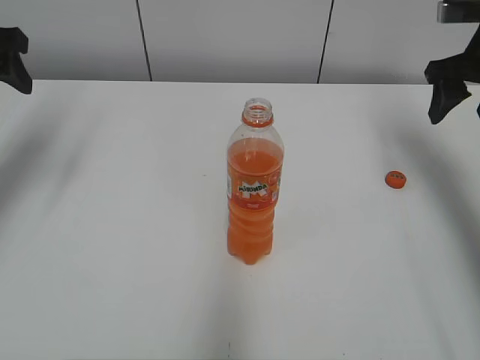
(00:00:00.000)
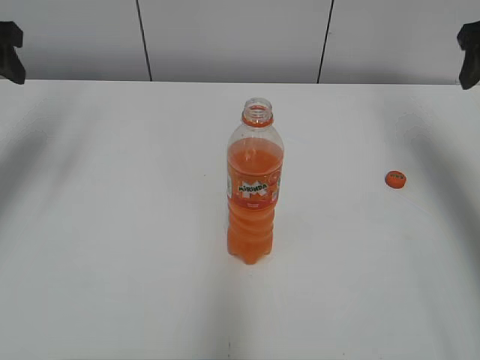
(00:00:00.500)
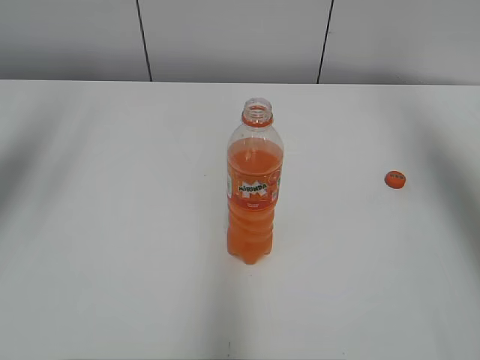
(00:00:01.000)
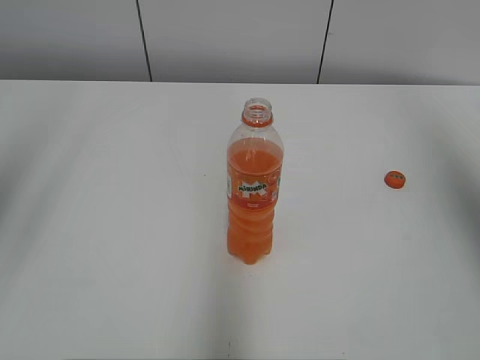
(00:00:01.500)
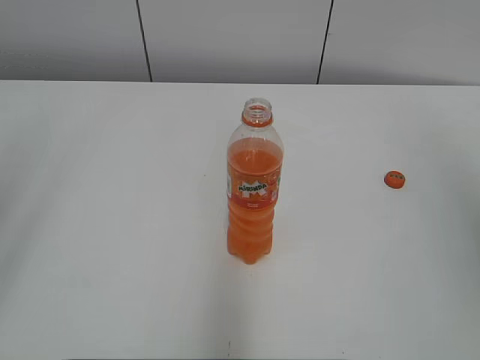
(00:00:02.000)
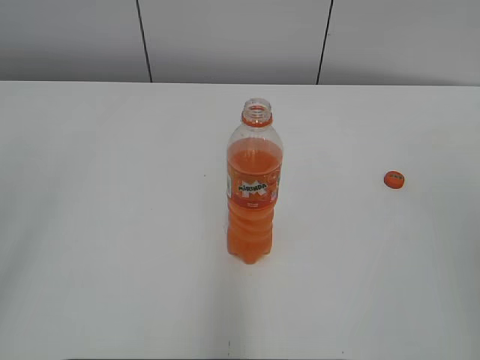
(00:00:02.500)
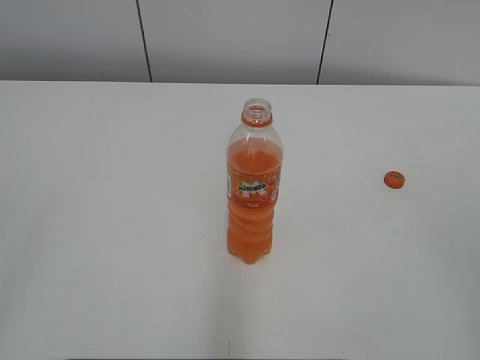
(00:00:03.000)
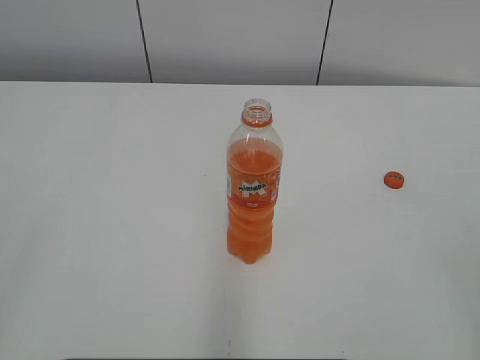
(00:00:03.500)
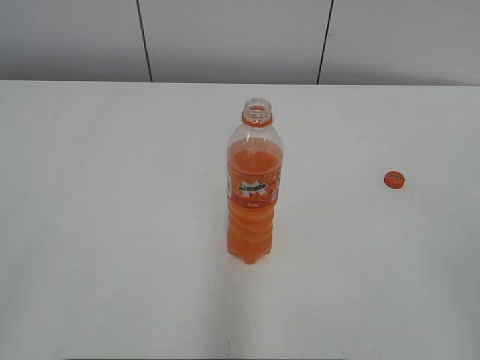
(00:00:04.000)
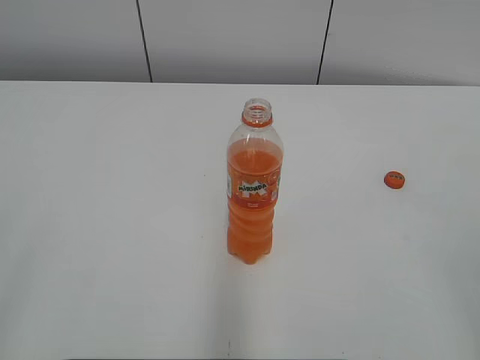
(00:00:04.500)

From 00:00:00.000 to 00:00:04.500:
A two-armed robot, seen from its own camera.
From 00:00:00.000 to 00:00:02.000: The two grippers go about 30 cm backward and upward.

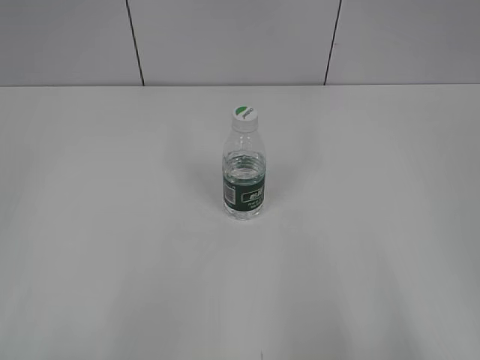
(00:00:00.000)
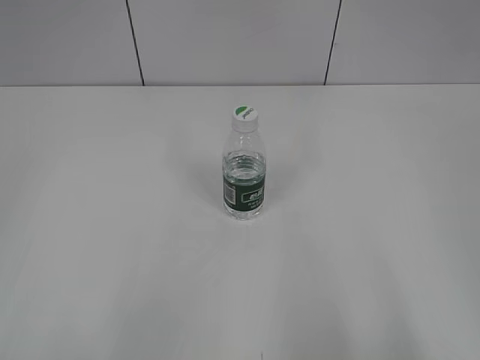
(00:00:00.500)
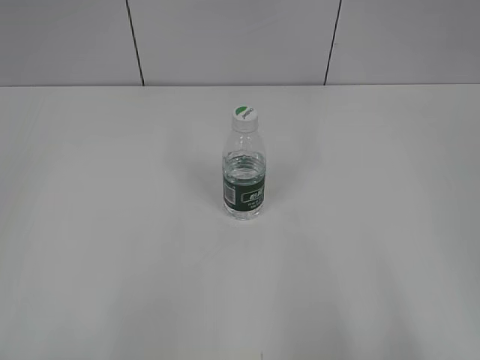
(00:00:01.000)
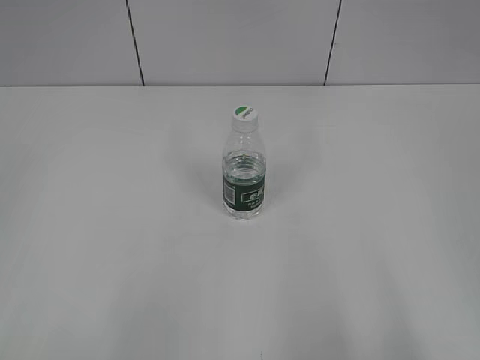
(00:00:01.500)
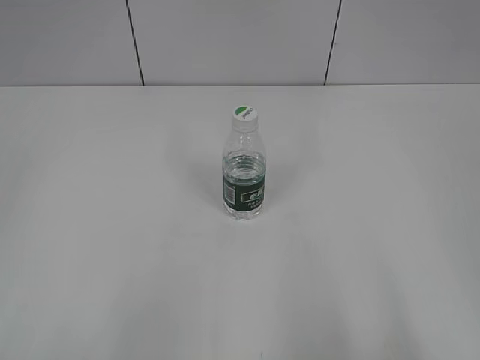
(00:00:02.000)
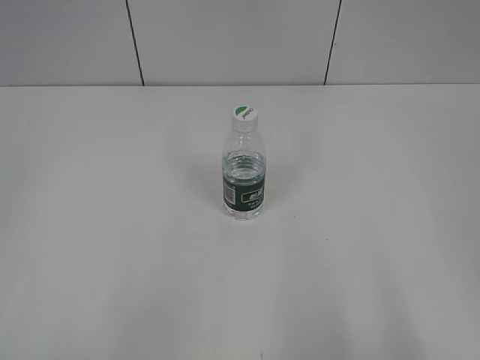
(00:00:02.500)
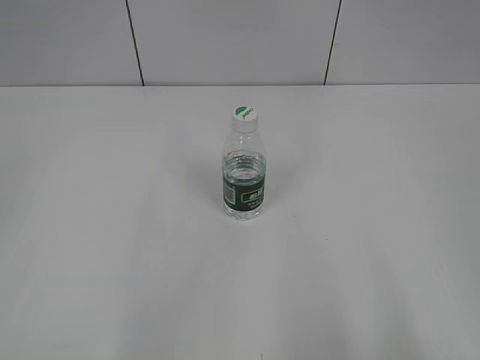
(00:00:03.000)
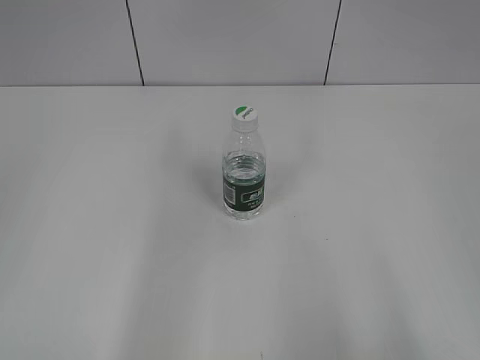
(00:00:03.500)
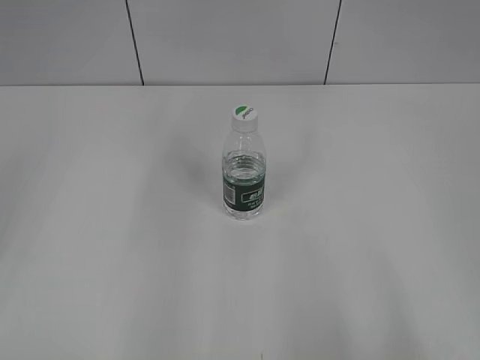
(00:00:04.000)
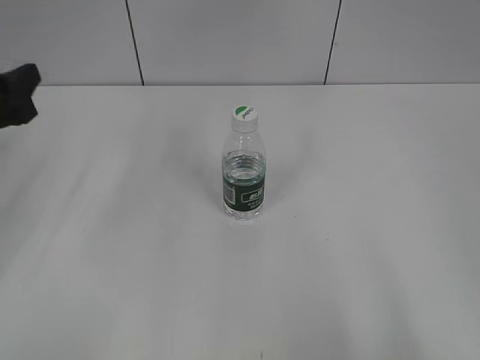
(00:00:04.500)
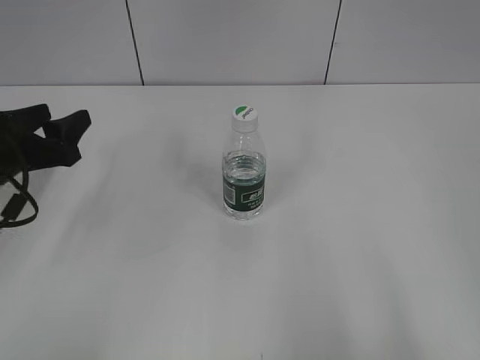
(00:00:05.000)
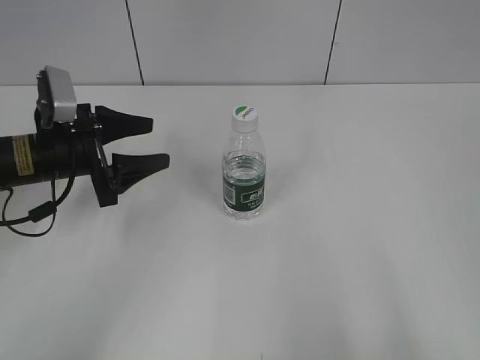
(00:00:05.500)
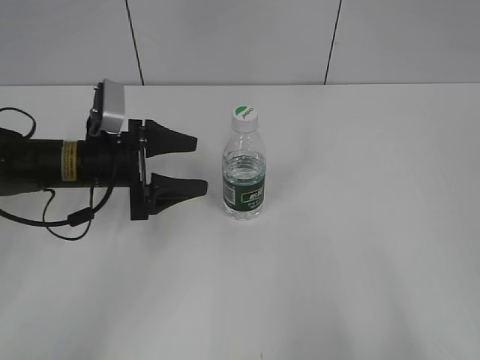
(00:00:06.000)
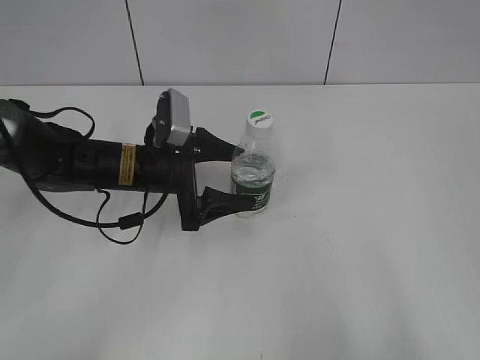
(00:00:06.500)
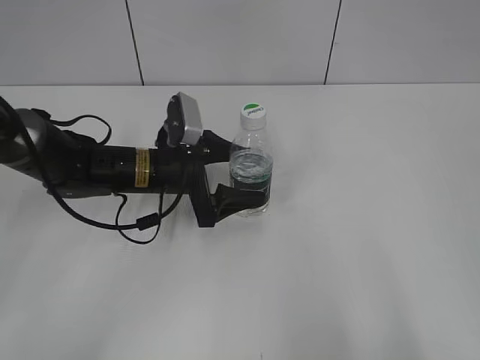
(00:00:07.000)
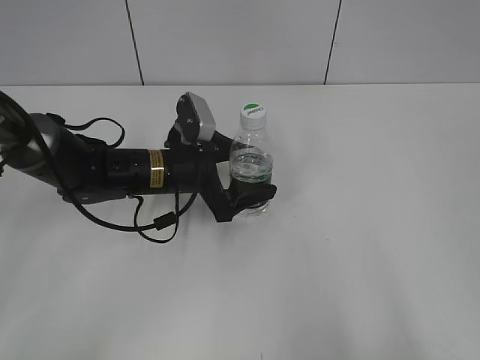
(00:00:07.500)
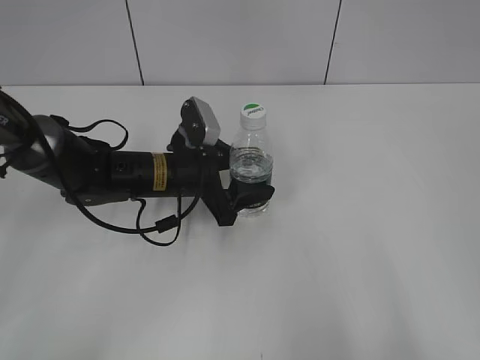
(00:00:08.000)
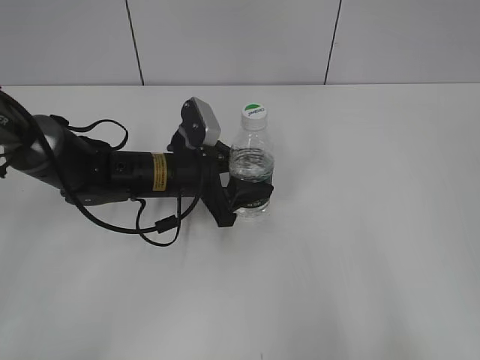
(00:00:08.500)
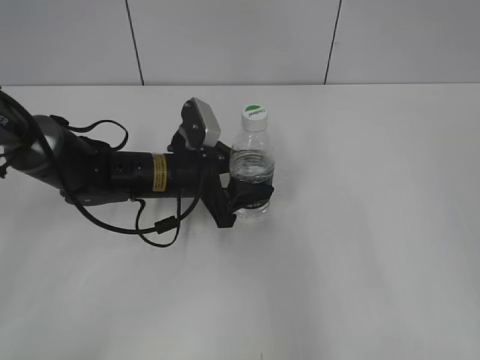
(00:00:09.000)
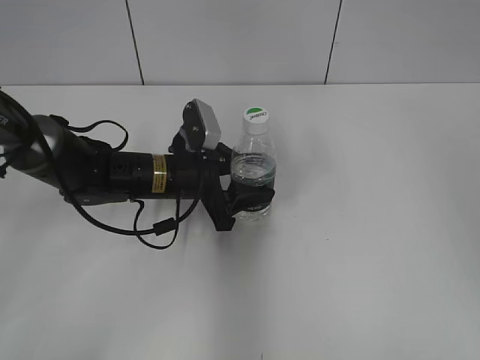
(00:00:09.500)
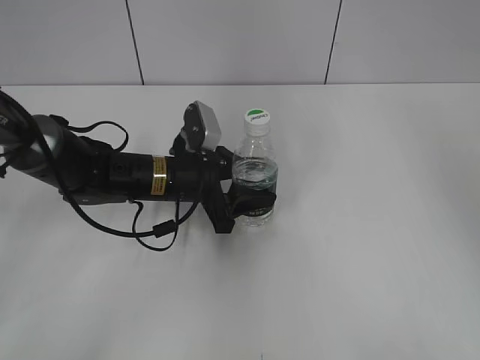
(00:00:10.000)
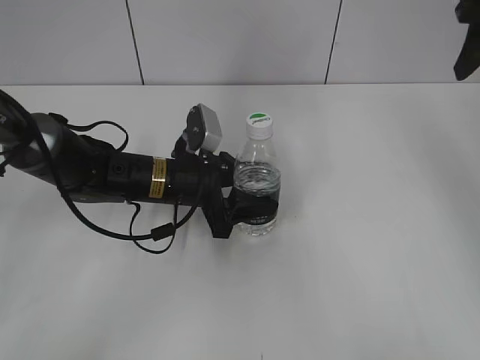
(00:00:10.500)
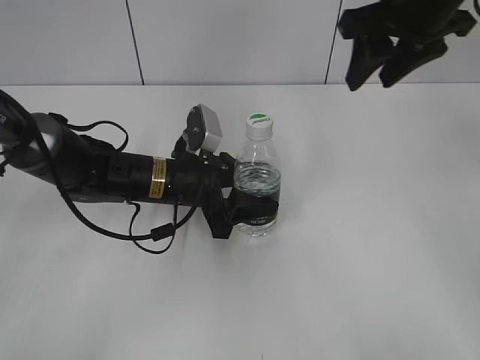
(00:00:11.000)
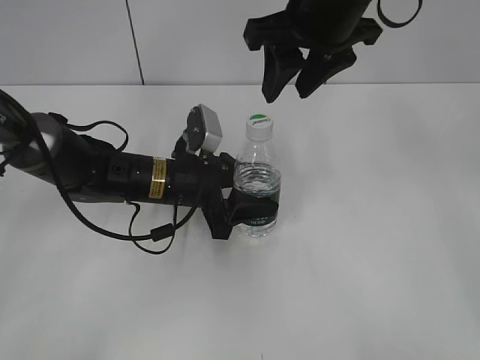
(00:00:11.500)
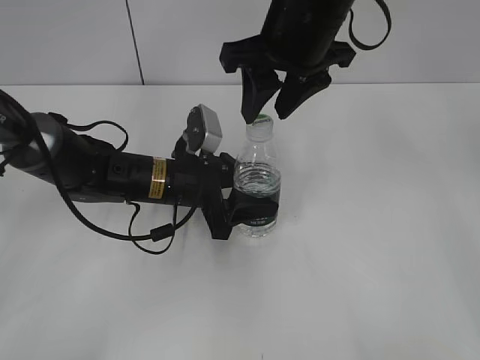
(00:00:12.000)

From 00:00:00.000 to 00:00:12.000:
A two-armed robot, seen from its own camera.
Step, from 00:00:00.000 to 00:00:08.500: Grasp the bottle and move it to the center of the table with the left gripper.
From 00:00:04.000 to 00:00:06.000: The left gripper heads downward, forward and to the right, covering some 25 cm.
From 00:00:06.000 to 00:00:08.000: The left gripper is displaced to the right by some 10 cm.
From 00:00:08.000 to 00:00:10.000: The right gripper heads forward, covering some 30 cm.
From 00:00:10.000 to 00:00:12.000: The right gripper moves to the left, some 25 cm.

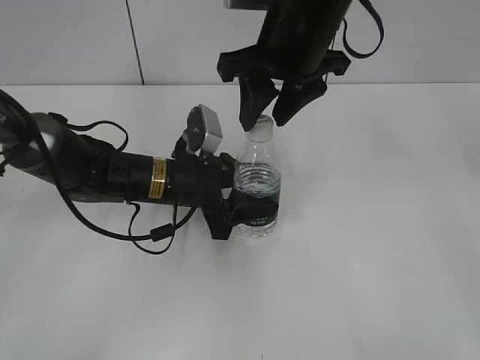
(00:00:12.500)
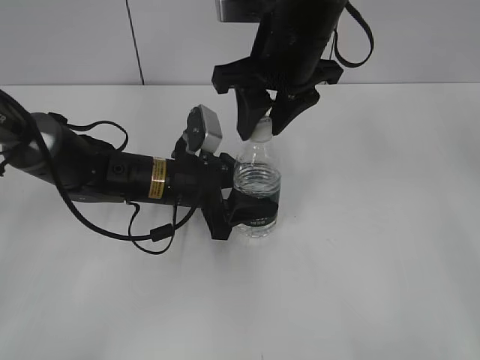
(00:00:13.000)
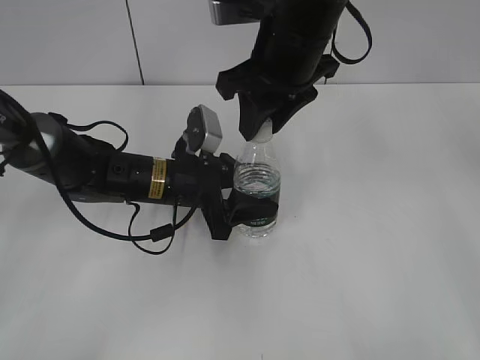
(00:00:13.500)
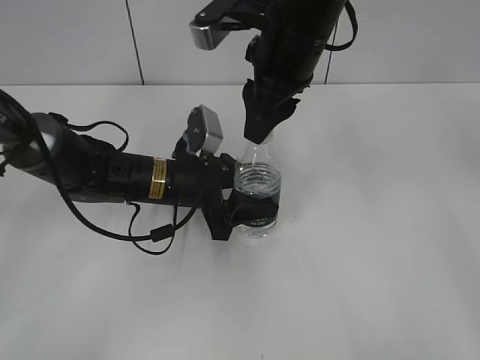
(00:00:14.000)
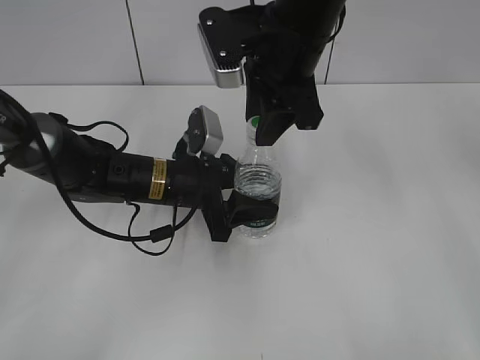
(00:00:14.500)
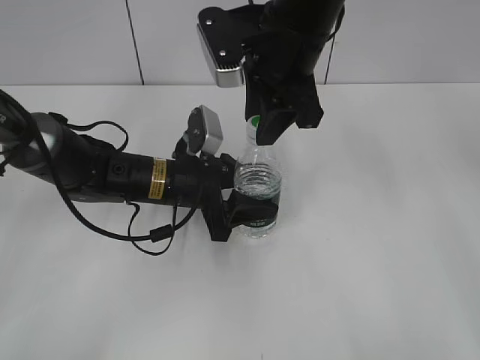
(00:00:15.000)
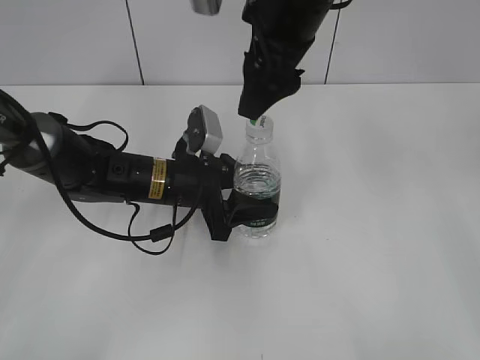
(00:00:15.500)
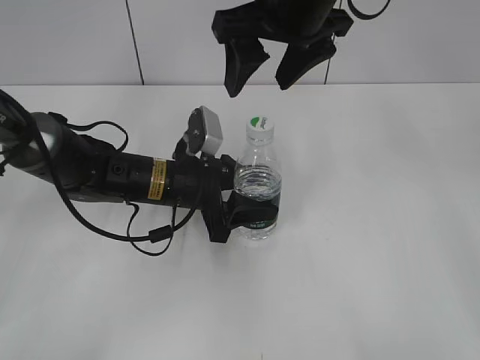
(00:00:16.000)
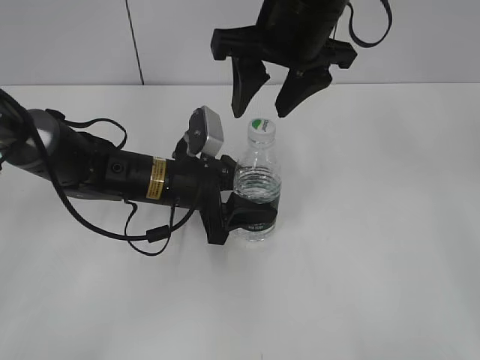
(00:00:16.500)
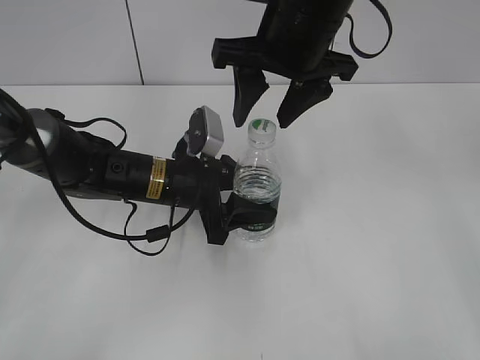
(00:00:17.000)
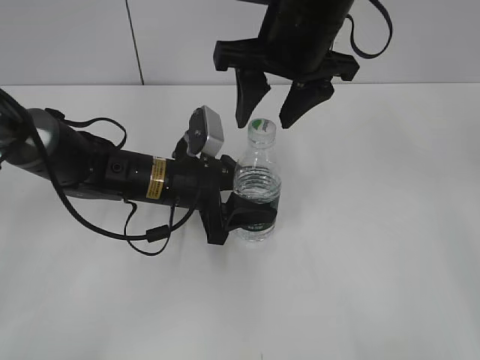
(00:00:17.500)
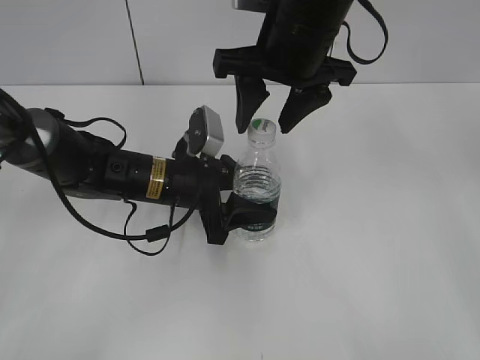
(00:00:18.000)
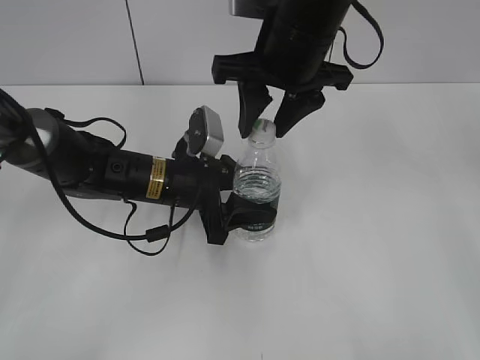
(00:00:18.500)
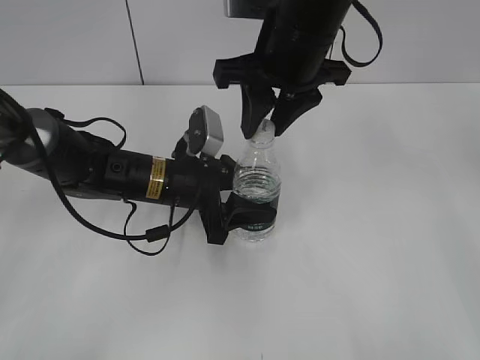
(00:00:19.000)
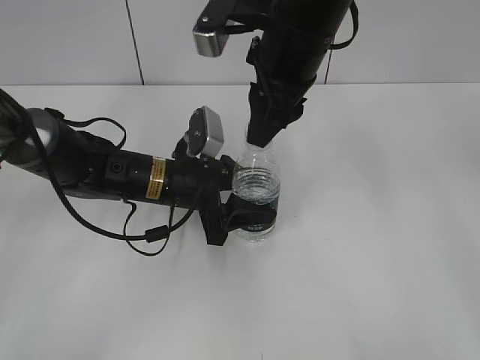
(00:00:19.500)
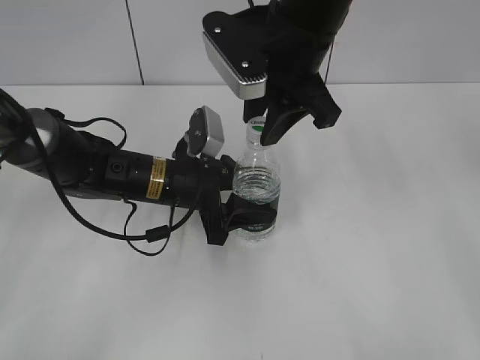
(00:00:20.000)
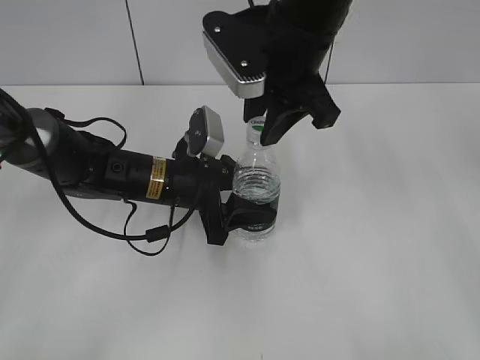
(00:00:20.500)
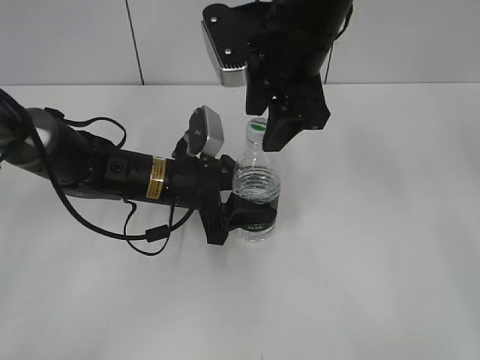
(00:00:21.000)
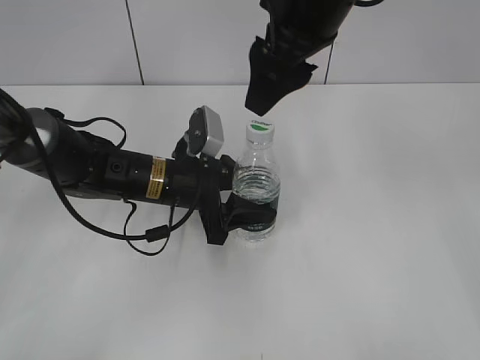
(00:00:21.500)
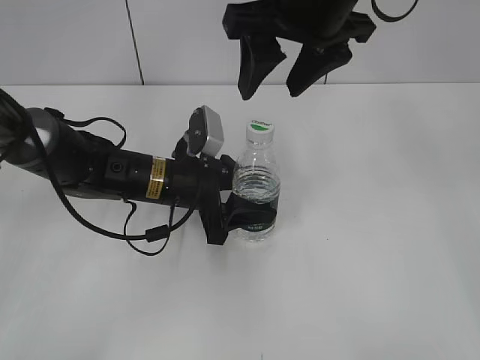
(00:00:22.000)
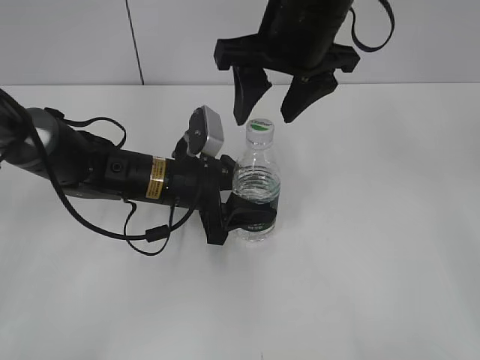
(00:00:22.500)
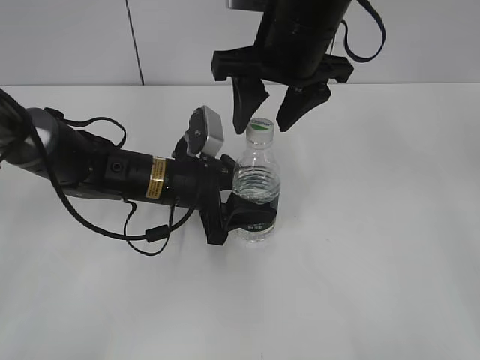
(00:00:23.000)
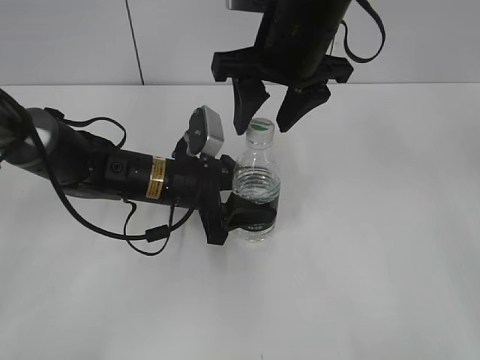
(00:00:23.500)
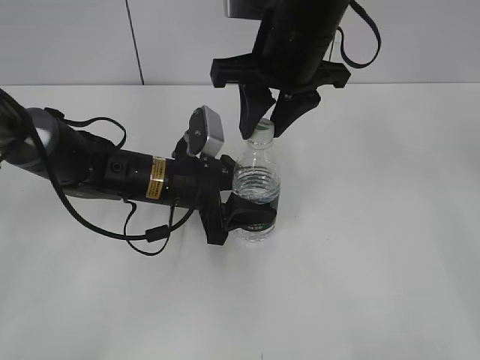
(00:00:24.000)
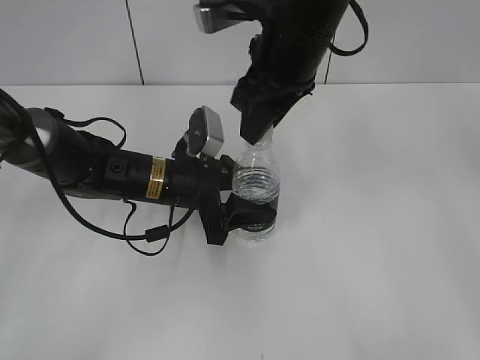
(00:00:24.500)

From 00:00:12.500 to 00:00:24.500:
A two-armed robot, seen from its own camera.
From 00:00:14.500 to 00:00:16.500: The right gripper opens its fingers.
From 00:00:16.500 to 00:00:18.500: The grippers move only a little.
From 00:00:20.500 to 00:00:22.500: The right gripper opens up.
From 00:00:22.500 to 00:00:24.500: The right gripper closes.
